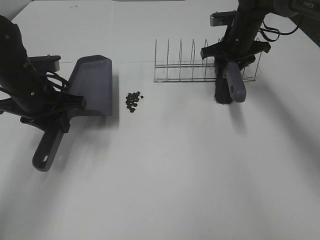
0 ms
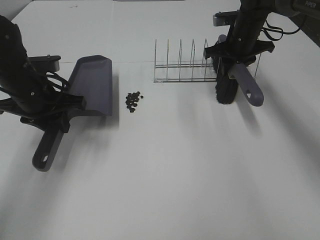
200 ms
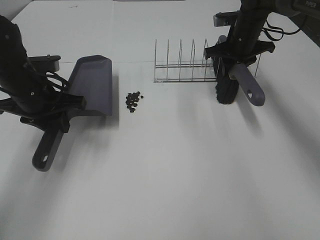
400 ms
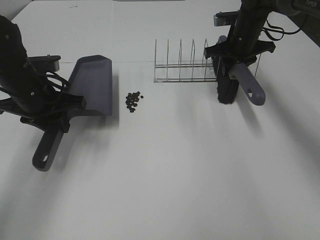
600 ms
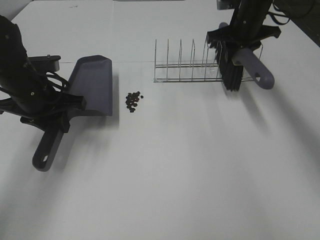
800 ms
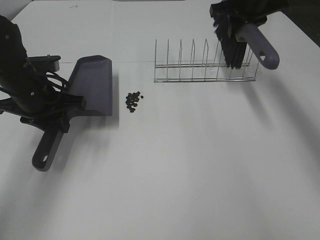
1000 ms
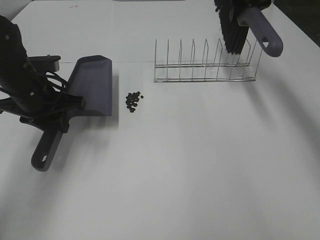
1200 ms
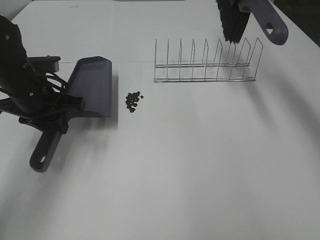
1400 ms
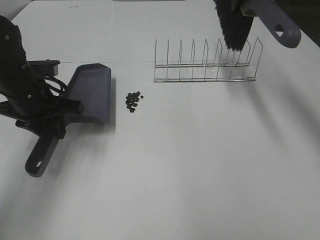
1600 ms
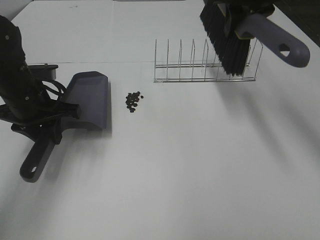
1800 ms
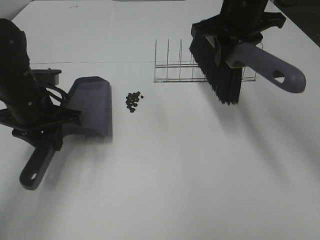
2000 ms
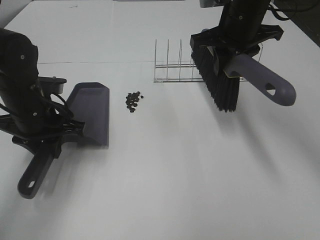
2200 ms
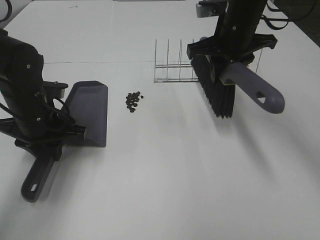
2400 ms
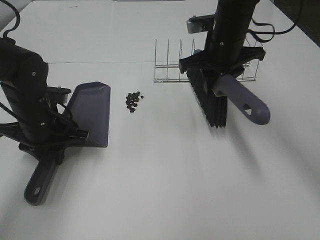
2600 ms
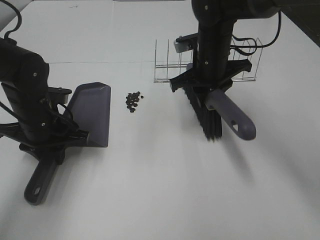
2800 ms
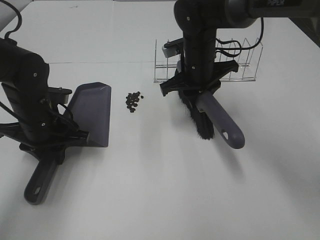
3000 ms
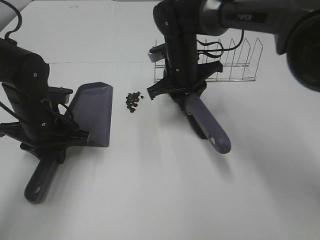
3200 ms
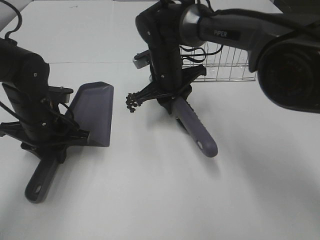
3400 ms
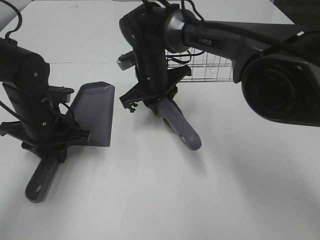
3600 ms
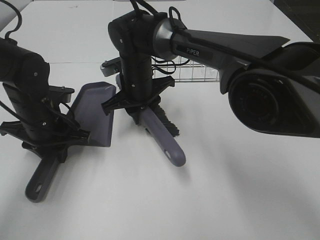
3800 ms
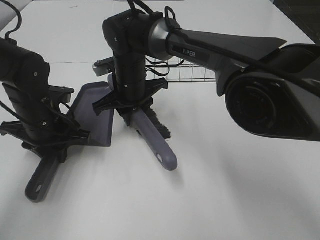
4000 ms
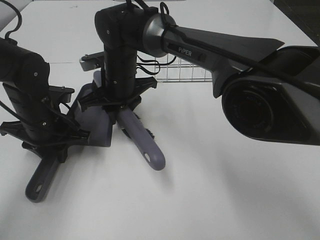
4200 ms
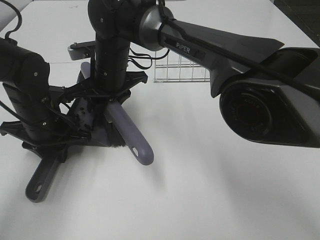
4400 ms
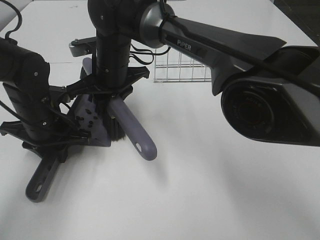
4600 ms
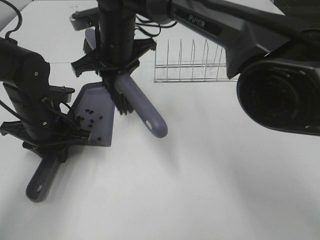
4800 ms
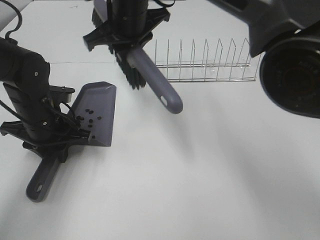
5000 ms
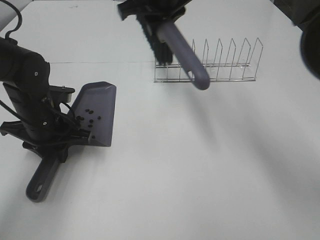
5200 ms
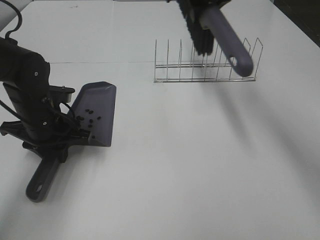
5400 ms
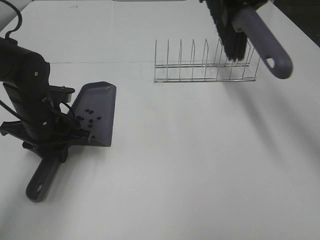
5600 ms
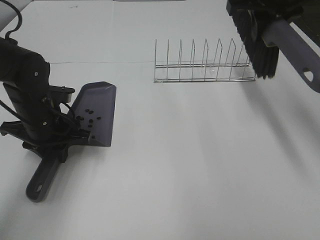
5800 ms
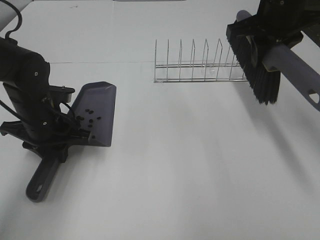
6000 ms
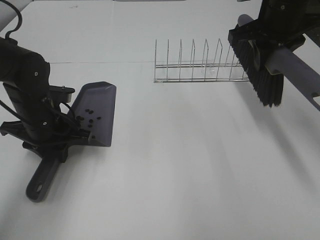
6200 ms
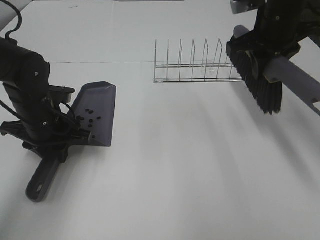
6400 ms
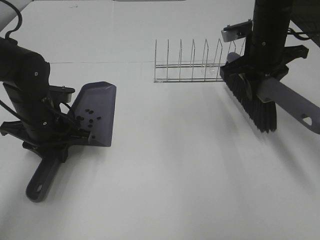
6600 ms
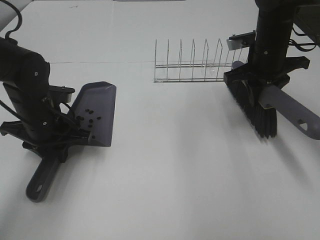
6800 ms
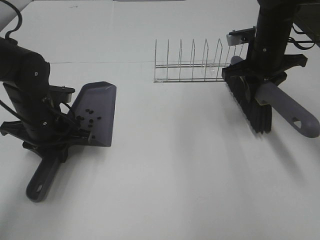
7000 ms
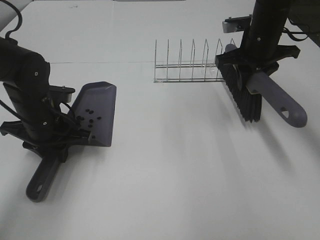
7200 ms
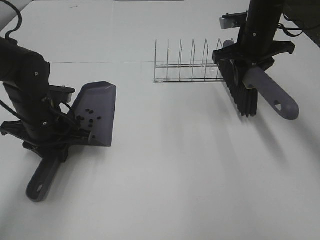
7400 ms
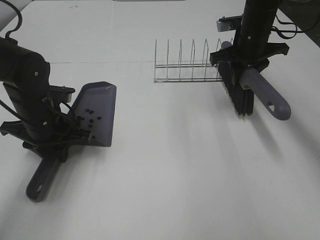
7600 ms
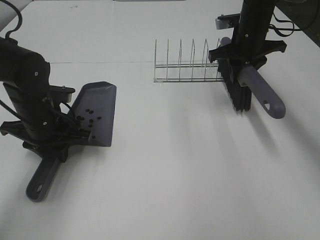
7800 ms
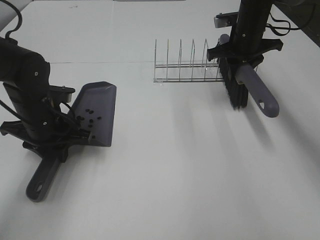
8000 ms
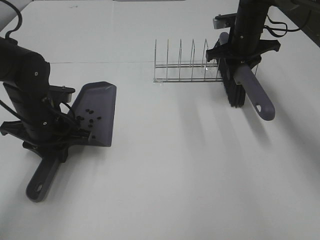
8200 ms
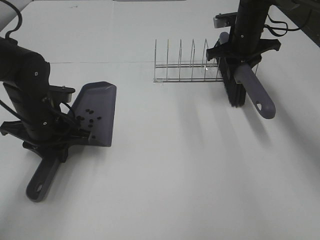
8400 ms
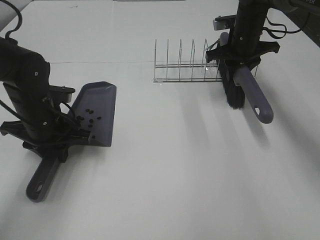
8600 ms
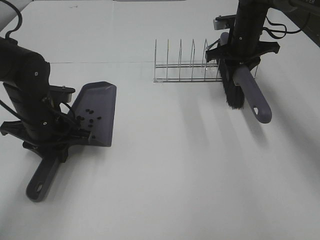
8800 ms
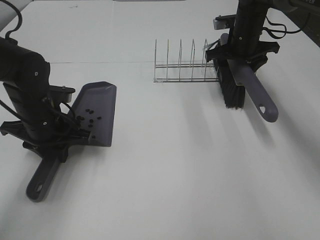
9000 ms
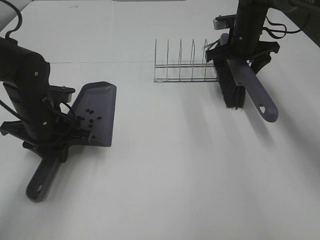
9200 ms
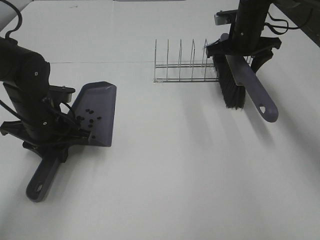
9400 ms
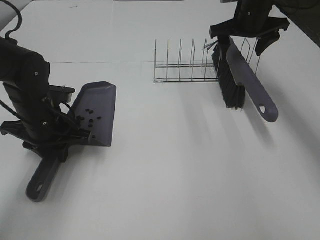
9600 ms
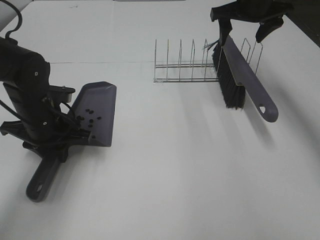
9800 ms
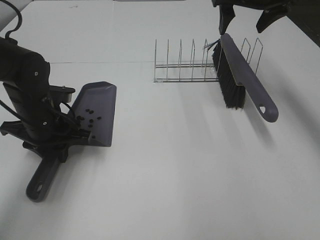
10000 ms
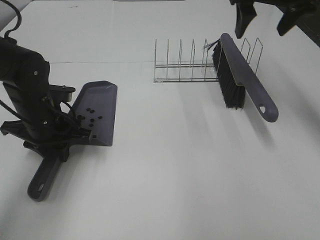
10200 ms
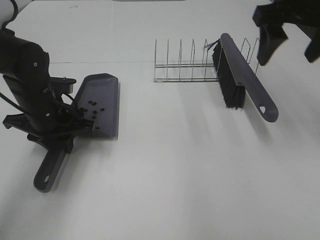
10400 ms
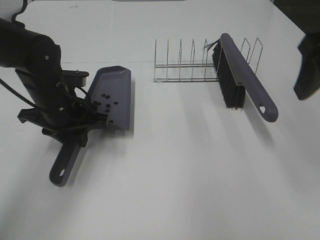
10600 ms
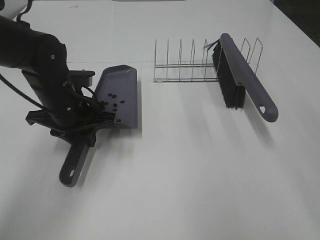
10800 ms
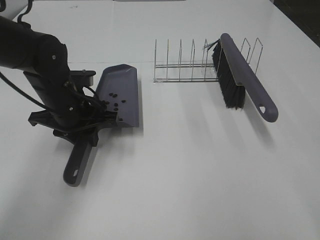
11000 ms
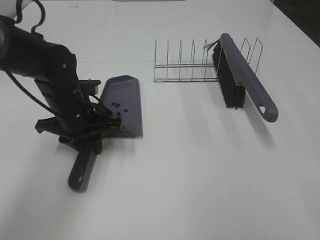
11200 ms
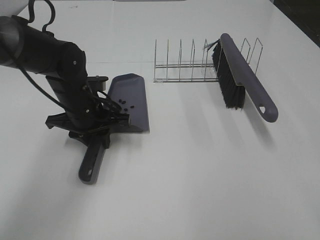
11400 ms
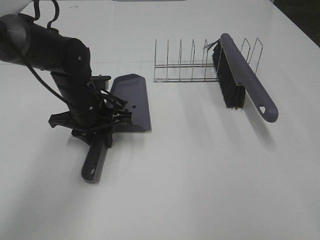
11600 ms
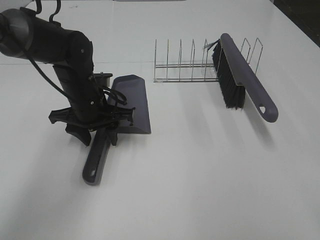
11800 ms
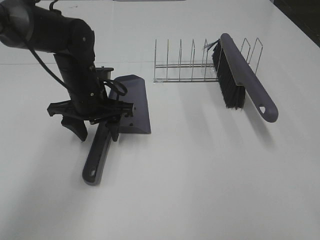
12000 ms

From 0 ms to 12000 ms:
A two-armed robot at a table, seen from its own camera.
Task of the whole recording: Sweep Coffee Bean.
Step, from 0 ms to 2600 ms: Left hand: move the dustpan to the left side of the coffee beans.
Step, from 0 ms to 4600 ms: Right hand:sweep the coffee beans into the dustpan.
Step, from 4800 ms to 9400 ms: Right hand:place the broom on the rack.
Step, from 9600 ms to 11800 ms: Left hand:place the dustpan on the table.
From 0 ms to 1600 ms: The right gripper moves upward, some 15 cm.
From 1600 ms to 3000 ms: The right gripper shifts about 20 cm downward and to the left; the left gripper ends up about 5 cm from where it was.
From 3000 ms to 4400 ms: The right gripper goes some 15 cm to the left.
From 4400 ms to 6000 ms: The right gripper moves to the right and upward, some 30 cm.
From 6000 ms to 7600 ms: The right gripper travels downward and forward by roughly 10 cm.
From 7600 ms to 9000 ms: The right gripper opens up.
From 9000 ms to 10400 ms: The right gripper goes approximately 25 cm backward and upward.
From 10400 ms to 12000 ms: The left gripper is displaced to the right by roughly 5 cm, and opens its fingers. The right gripper moves backward, roughly 25 cm.

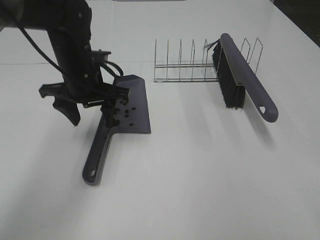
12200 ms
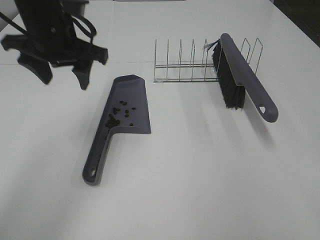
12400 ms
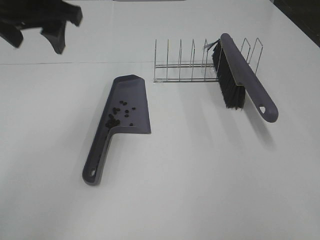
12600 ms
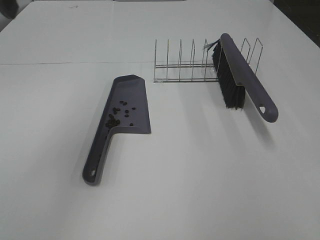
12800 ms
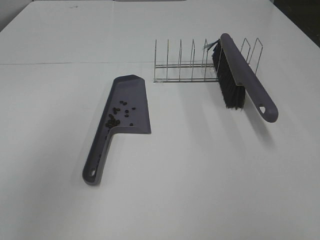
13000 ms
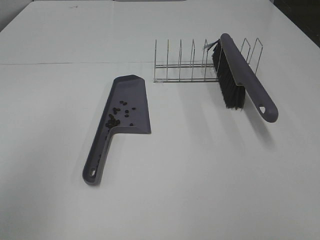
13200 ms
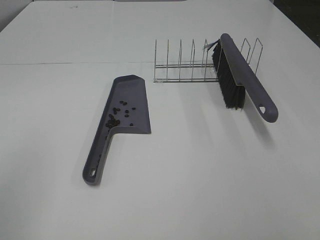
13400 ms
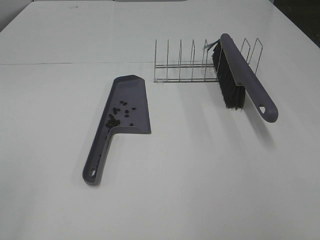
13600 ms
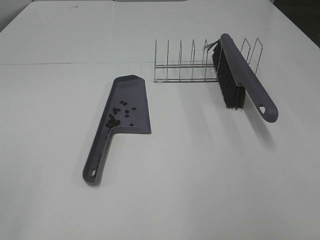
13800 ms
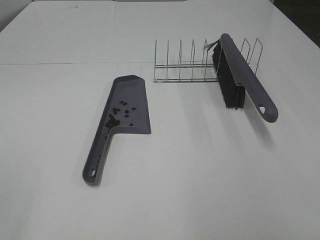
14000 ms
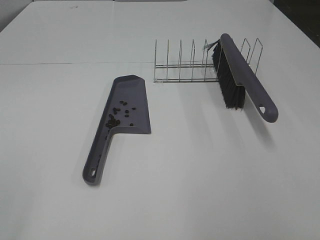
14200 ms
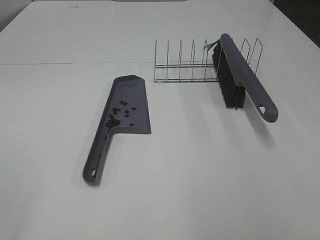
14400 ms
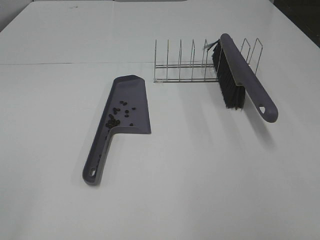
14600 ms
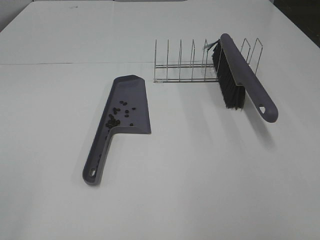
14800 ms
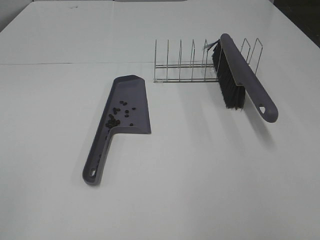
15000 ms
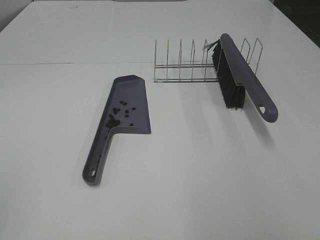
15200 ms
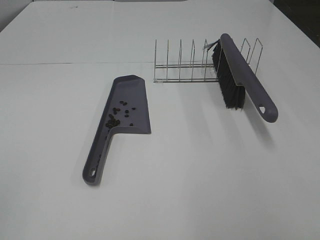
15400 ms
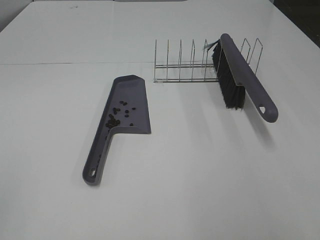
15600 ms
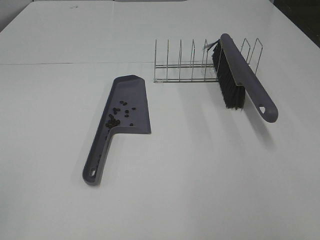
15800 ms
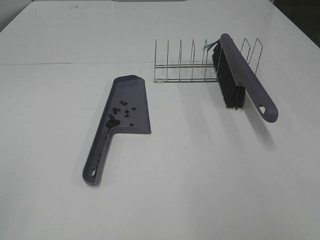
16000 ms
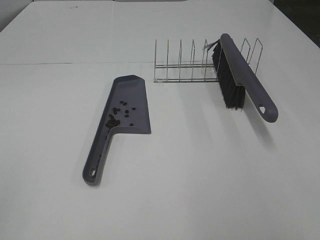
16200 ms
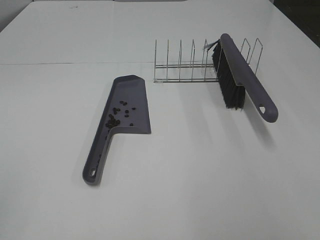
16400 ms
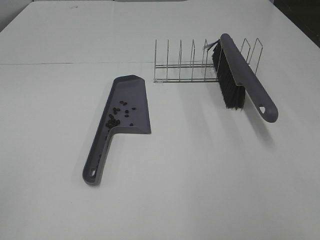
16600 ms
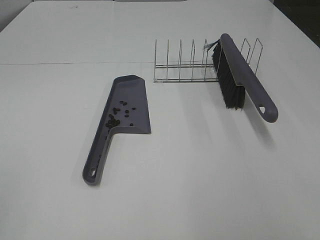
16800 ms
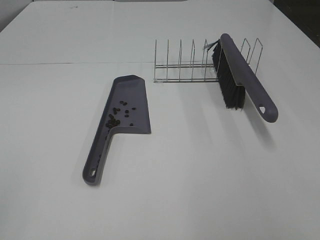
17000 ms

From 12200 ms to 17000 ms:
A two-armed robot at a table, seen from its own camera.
Task of the whole recording: Sweep Coffee Bean.
From 12200 ms to 13800 ms: The left gripper goes roughly 40 cm backward and to the left; the right gripper shifts some 10 cm backward.

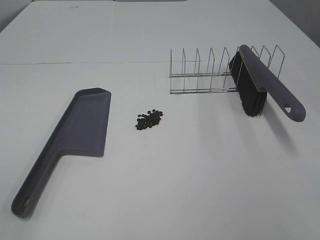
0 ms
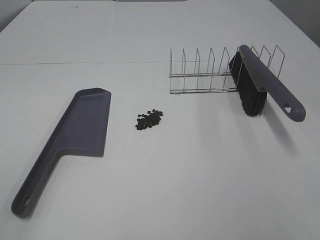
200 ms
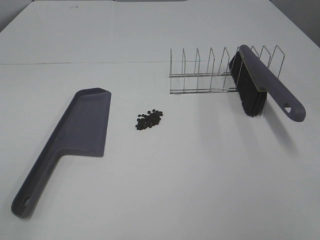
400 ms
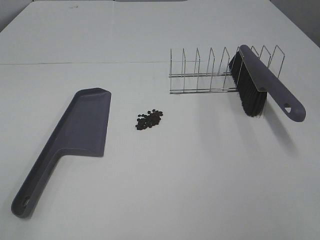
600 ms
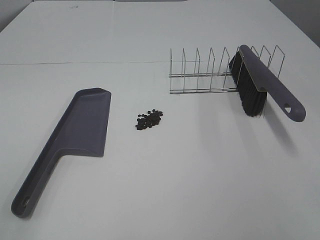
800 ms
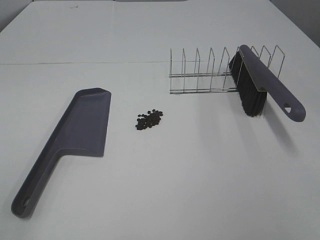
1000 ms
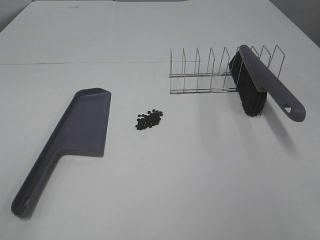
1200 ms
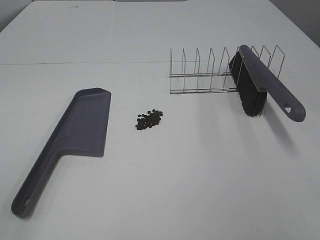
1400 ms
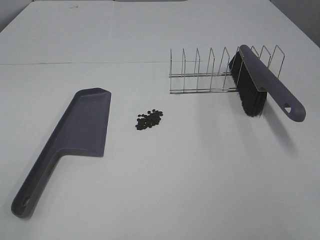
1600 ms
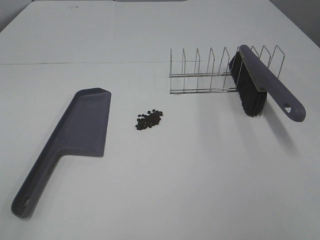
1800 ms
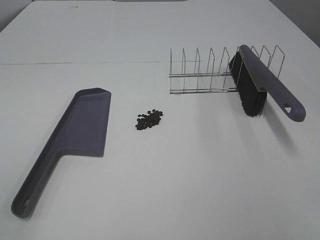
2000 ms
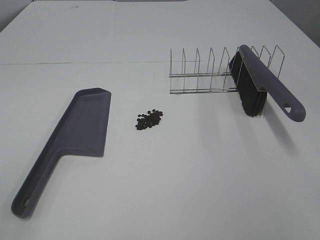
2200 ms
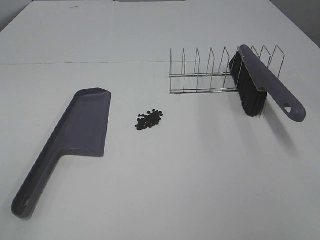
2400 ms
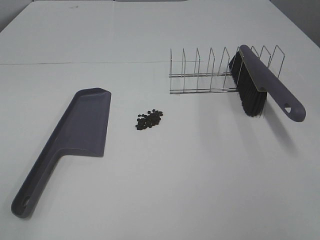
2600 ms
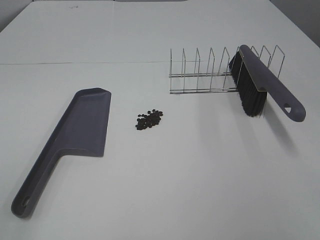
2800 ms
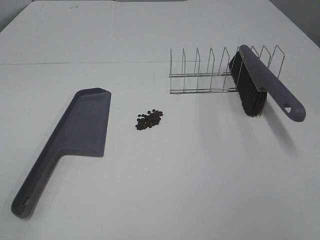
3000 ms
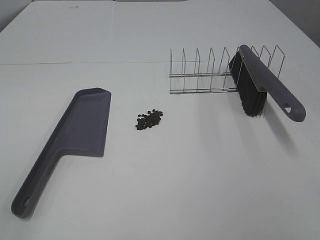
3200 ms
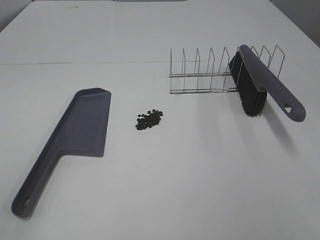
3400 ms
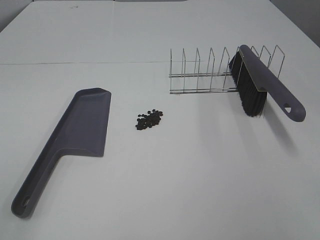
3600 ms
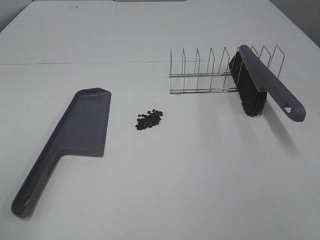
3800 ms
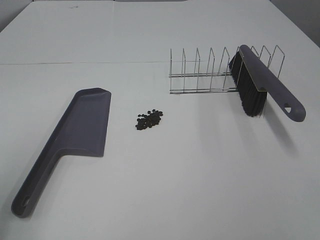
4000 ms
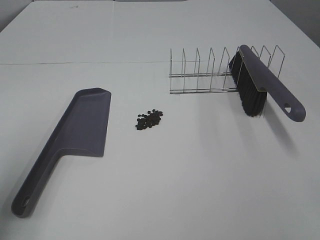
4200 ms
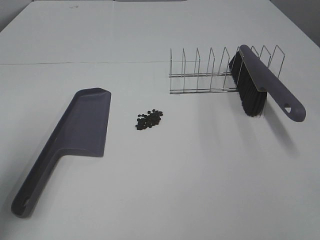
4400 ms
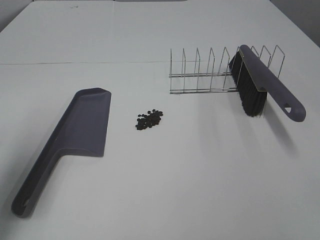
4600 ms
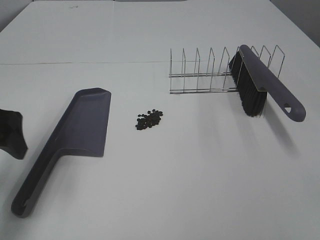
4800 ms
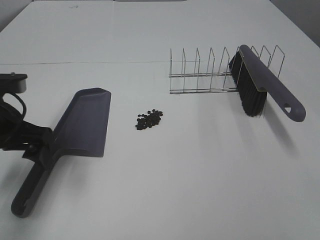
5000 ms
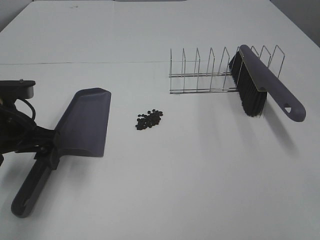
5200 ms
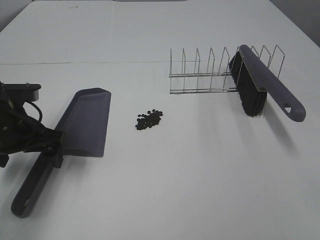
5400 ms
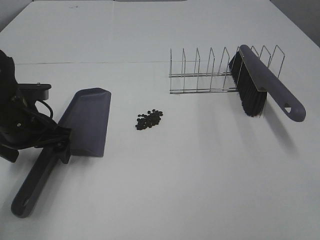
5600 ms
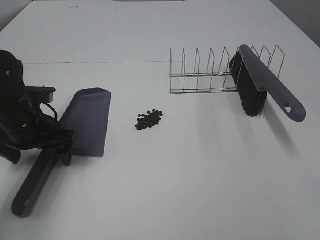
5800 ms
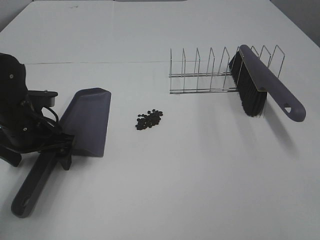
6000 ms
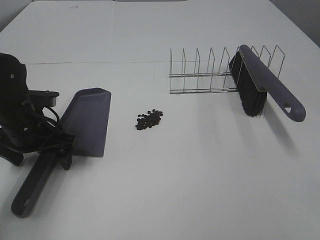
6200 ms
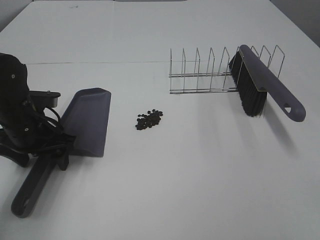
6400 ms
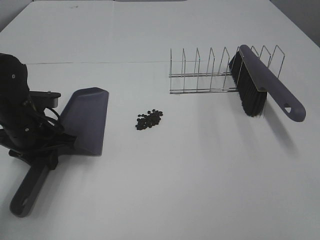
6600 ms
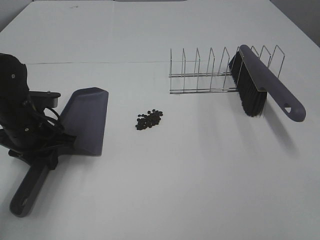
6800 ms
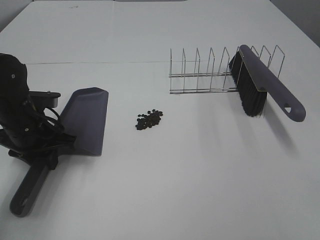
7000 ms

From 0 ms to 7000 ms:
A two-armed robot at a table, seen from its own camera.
Task of the whole recording: Sweep Coffee Bean.
Step, from 0 ms to 6600 ms: Left hand: grab the dustpan.
From 0 ms to 2800 ms: Neither gripper changes place.
From 2800 ms to 4200 ms: The left gripper moves forward, approximately 15 cm.
From 4200 ms to 5600 ms: The left gripper shifts approximately 25 cm downward, forward and to the right.
From 5600 ms to 7000 ms: The left gripper closes.
